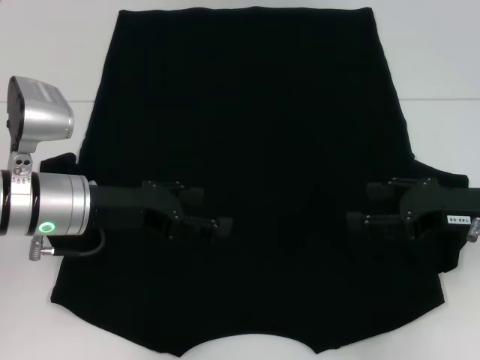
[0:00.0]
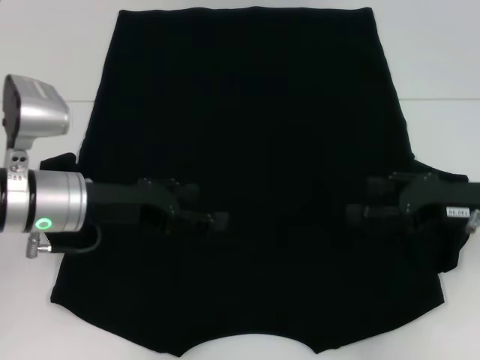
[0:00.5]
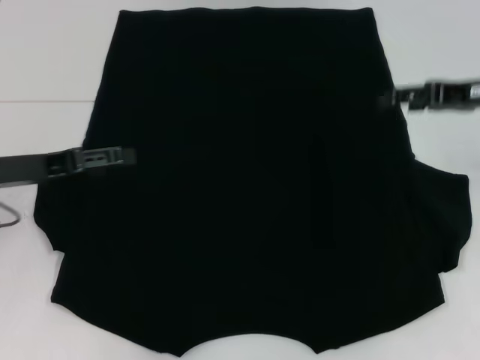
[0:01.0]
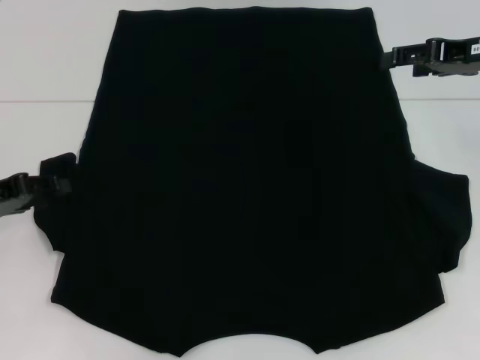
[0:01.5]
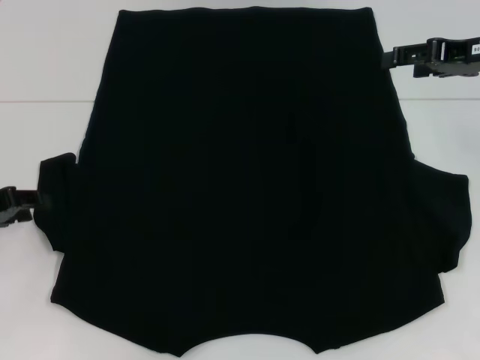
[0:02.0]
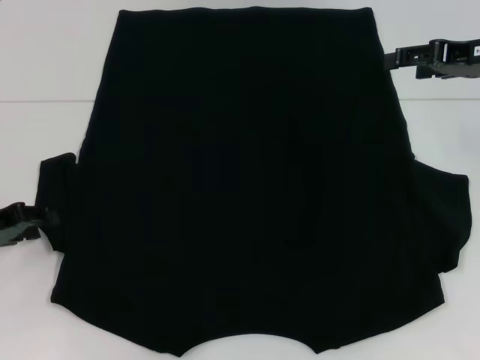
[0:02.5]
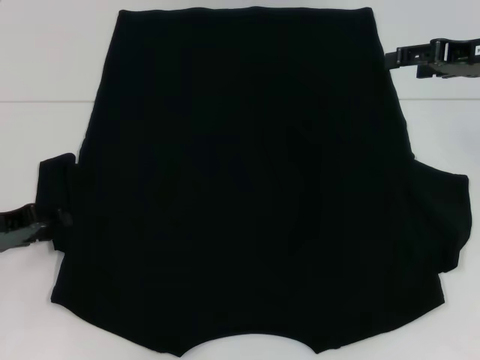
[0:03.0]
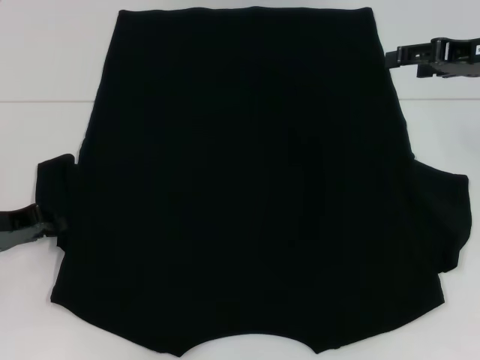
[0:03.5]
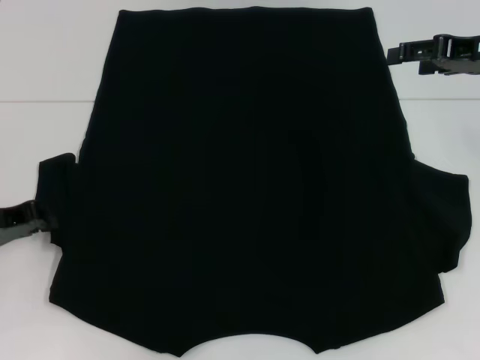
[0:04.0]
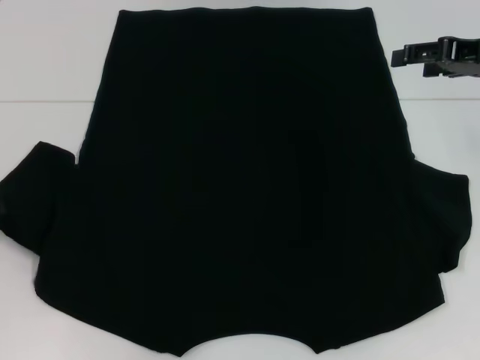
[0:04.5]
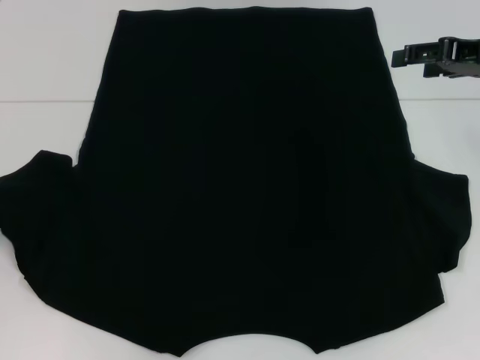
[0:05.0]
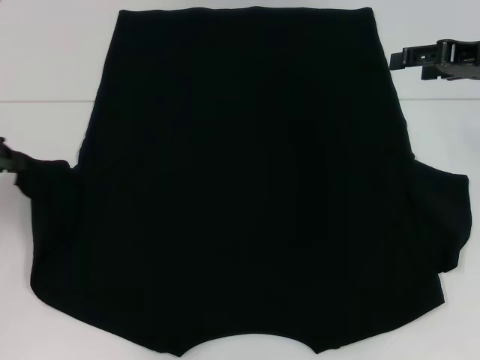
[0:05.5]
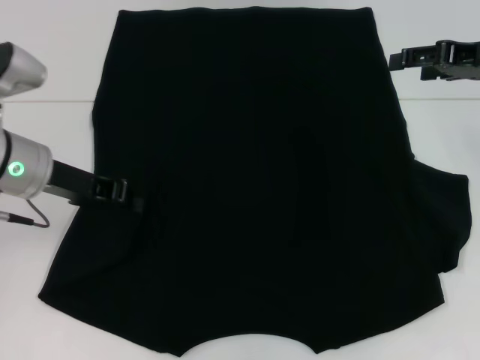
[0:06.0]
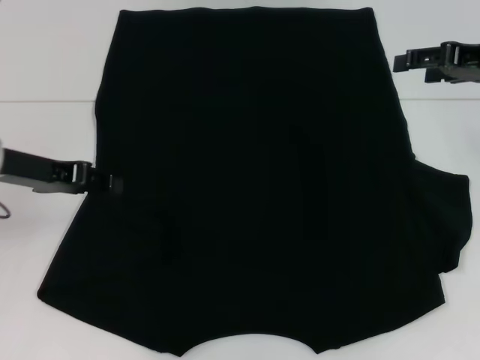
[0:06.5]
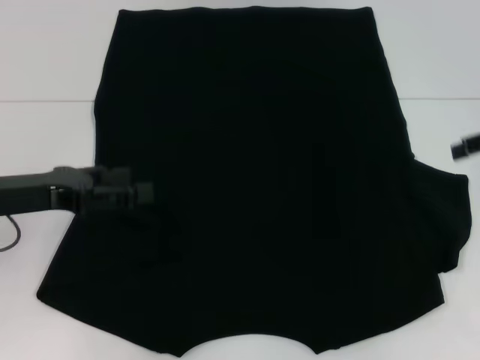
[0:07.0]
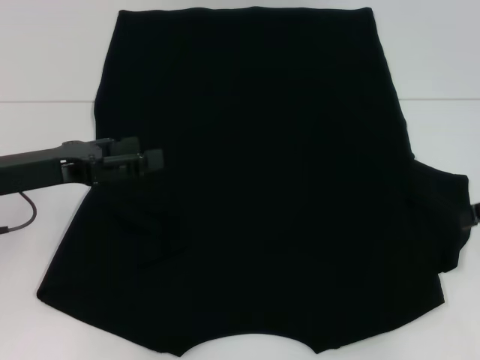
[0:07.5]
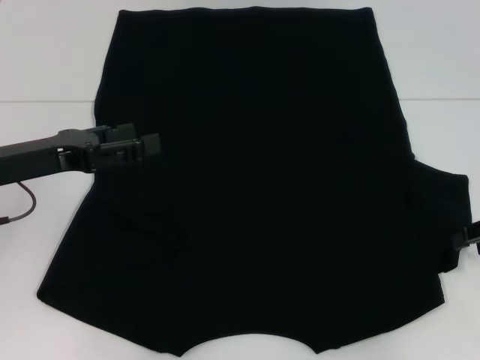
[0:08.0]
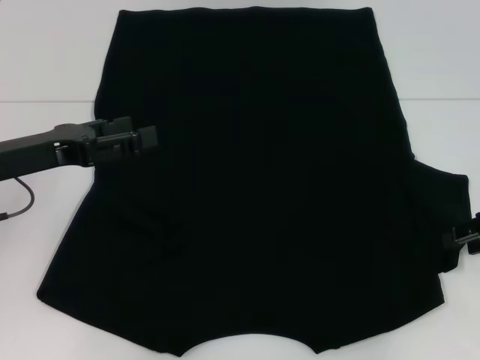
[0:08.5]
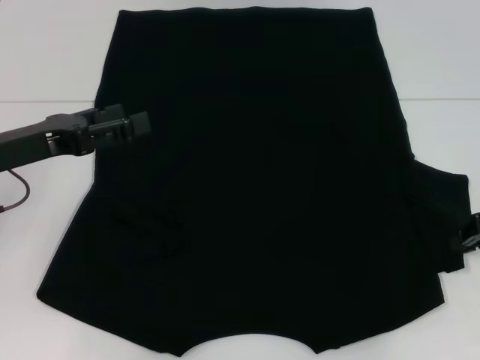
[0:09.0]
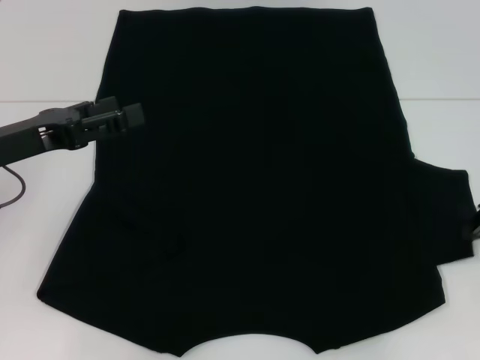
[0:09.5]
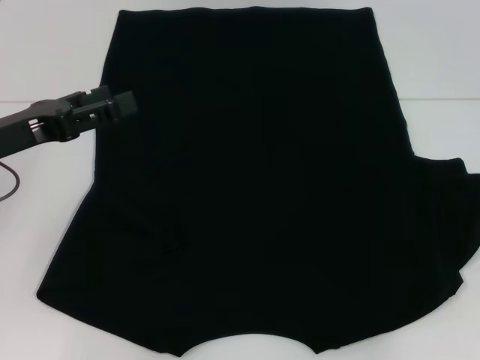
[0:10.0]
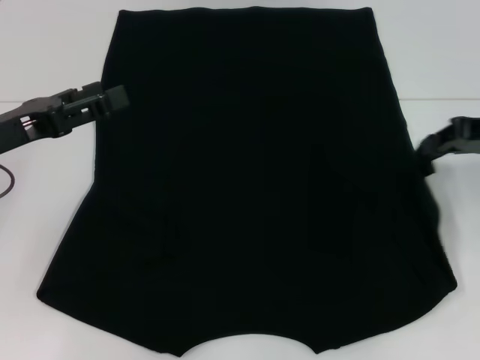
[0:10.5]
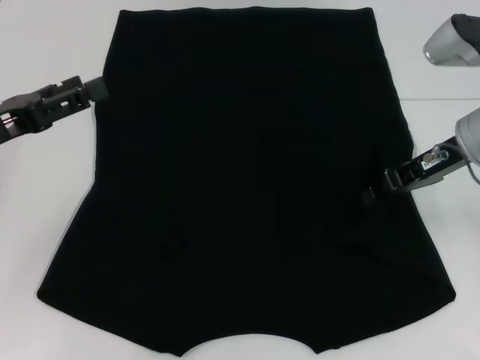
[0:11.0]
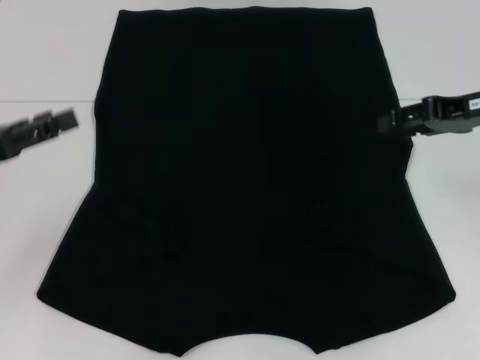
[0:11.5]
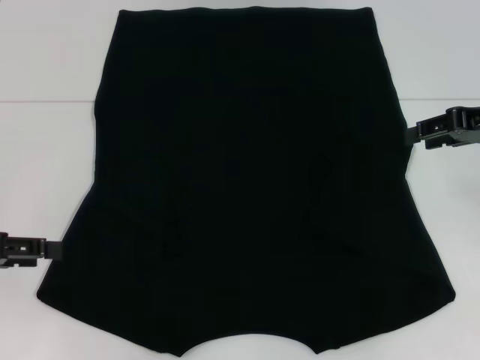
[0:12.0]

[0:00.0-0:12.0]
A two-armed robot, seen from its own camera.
Step, 0.0 to 6.0 s: Fold the bottom left sleeve with your left hand.
Step, 6.5 to 11.0 s: Fold the bottom right sleeve with your right hand.
0.0 to 2.0 s: The right gripper is displaced upward and forward by about 15 cm; the left gripper is displaced to the left by roughly 15 cm, and closes its fingers.
2.0 to 4.0 s: The left gripper closes its fingers.
4.0 to 6.0 s: The left gripper travels to the right and upward by about 10 cm.
6.0 to 8.0 s: The right gripper travels backward, downward and to the right by roughly 15 cm; the left gripper shifts by some 5 cm, and opens up.
8.0 to 10.0 s: The right gripper closes its fingers.
10.0 to 12.0 s: The two grippers go about 5 cm to the left. The right gripper opens up.

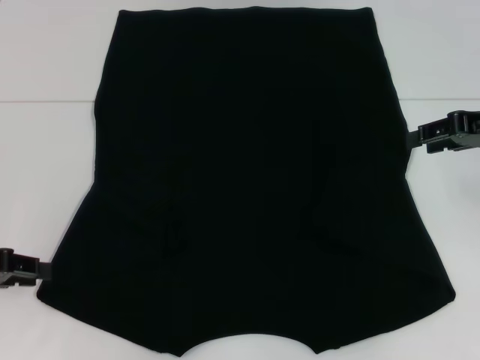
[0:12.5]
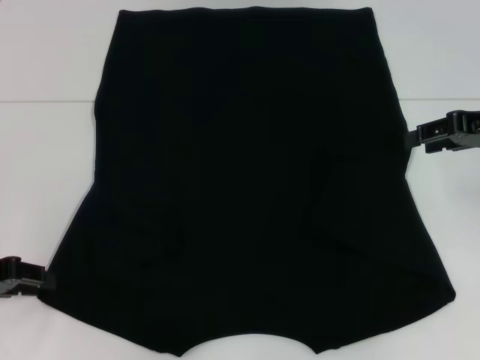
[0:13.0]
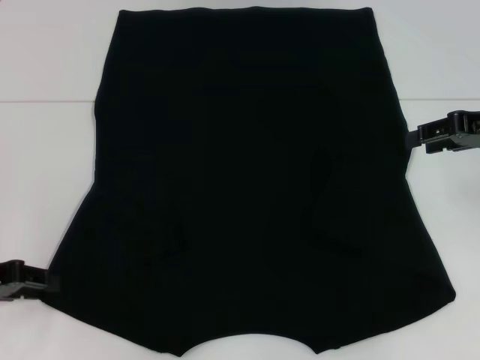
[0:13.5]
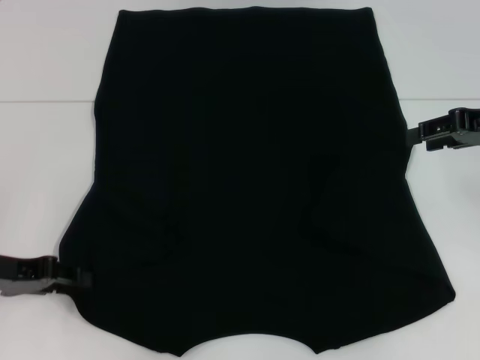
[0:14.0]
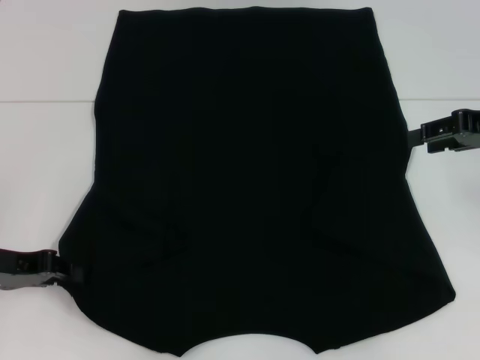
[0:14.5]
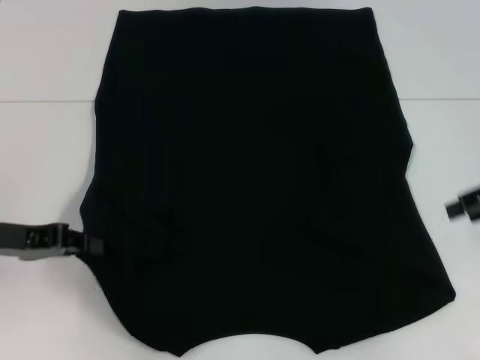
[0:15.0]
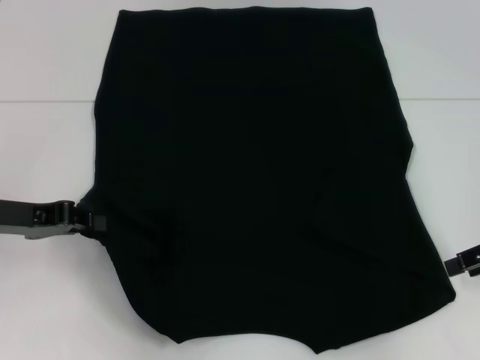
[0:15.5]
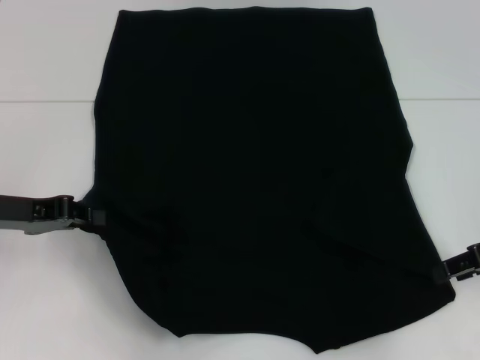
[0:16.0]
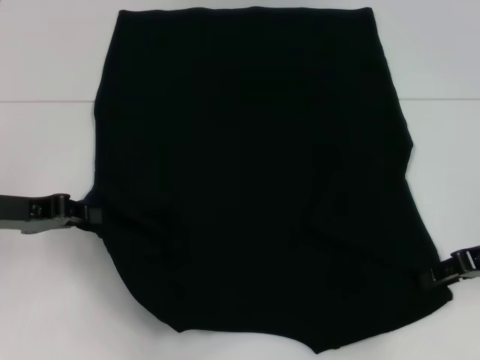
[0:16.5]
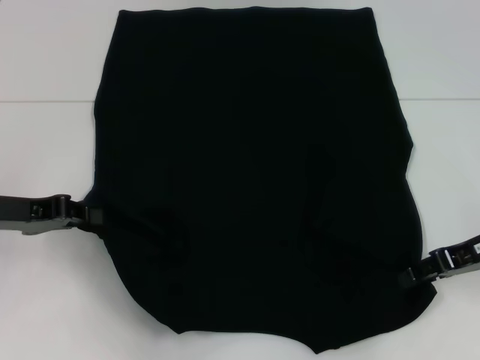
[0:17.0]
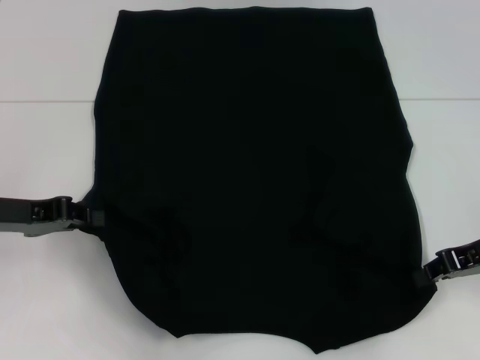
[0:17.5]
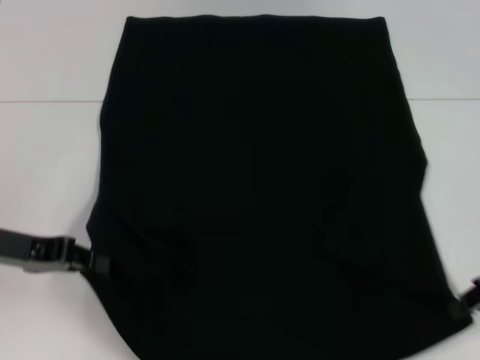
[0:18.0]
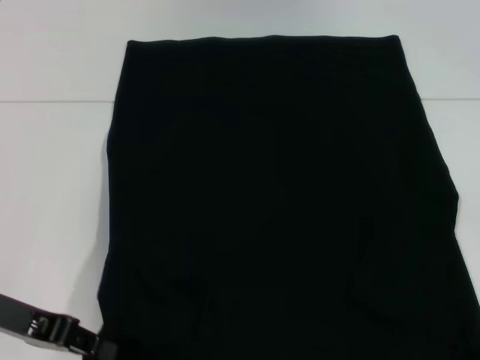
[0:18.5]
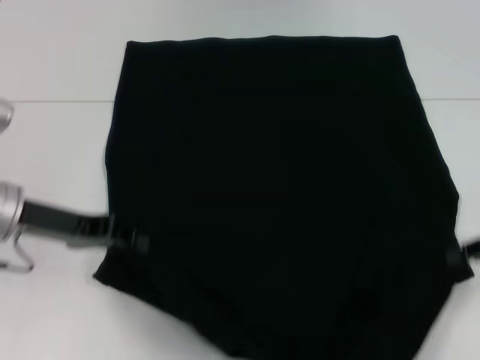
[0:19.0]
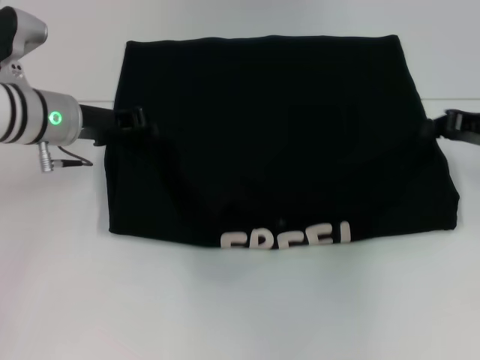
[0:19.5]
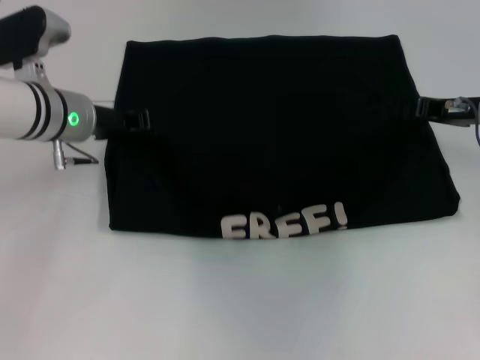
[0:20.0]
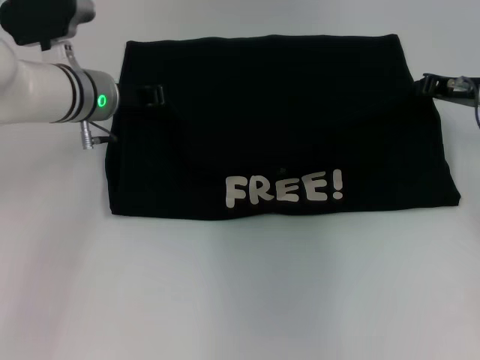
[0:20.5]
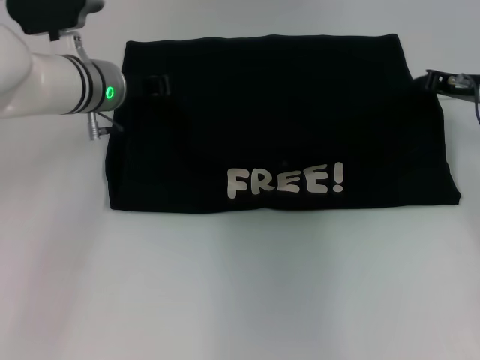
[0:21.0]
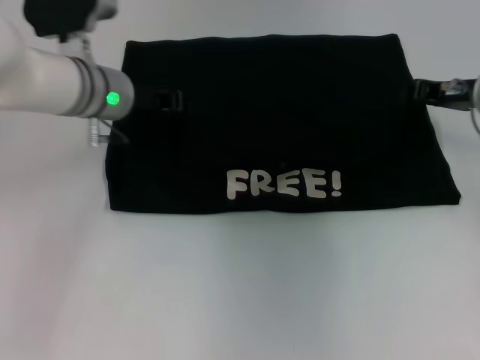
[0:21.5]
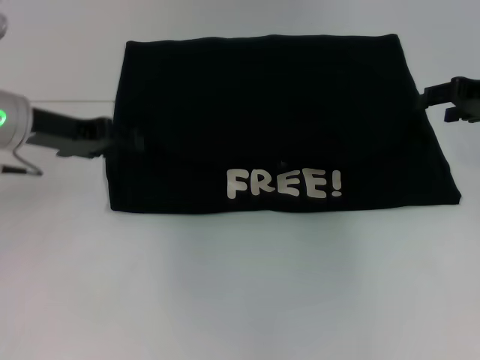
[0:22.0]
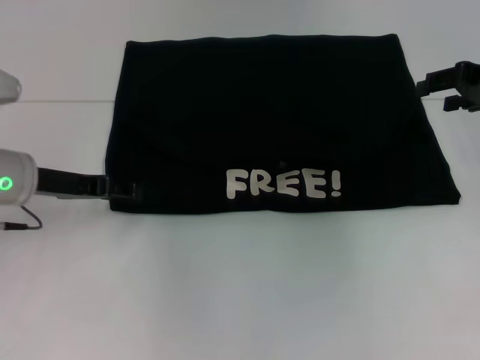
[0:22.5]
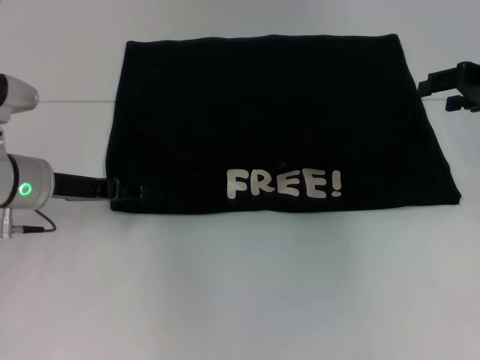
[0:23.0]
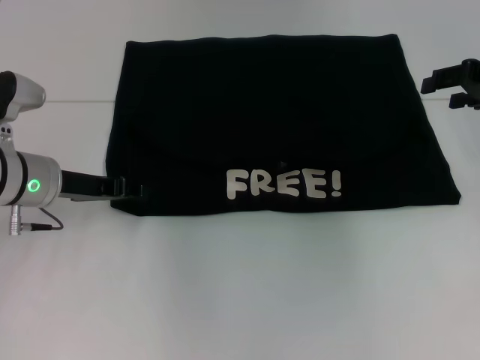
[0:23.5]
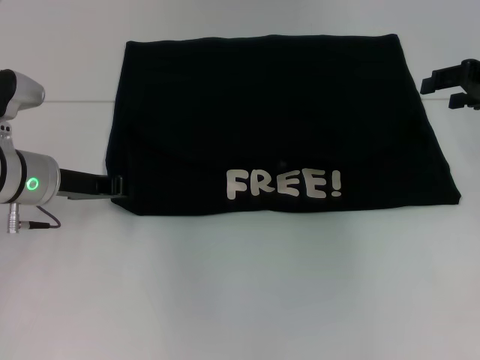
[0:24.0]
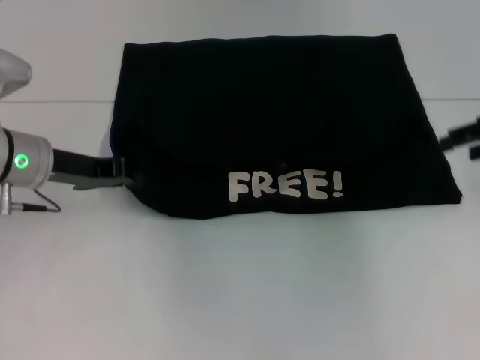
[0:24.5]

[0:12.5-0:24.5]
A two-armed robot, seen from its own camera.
Step, 12.5 to 14.5 s: Grab the bottom left corner with your left hand.
Step, 15.0 to 17.5 s: Grab the bottom right corner with your right hand.
Step, 18.0 to 21.5 s: Fold the clothes with your left hand.
Step, 18.0 to 21.5 s: Fold the clothes with your right hand.
12.5 to 14.5 s: The grippers make only small movements.
14.5 to 16.5 s: The right gripper shifts some 10 cm downward and backward.
16.5 to 18.5 s: Both grippers travel together backward, roughly 5 cm. The right gripper closes up.
18.5 to 20.5 s: The right gripper goes roughly 20 cm forward. The left gripper heads forward and to the right, covering approximately 20 cm.
20.5 to 22.5 s: The right gripper travels upward by roughly 5 cm, and opens up, while the left gripper shifts about 10 cm to the left and backward, and opens up.
22.5 to 24.5 s: The left gripper closes.

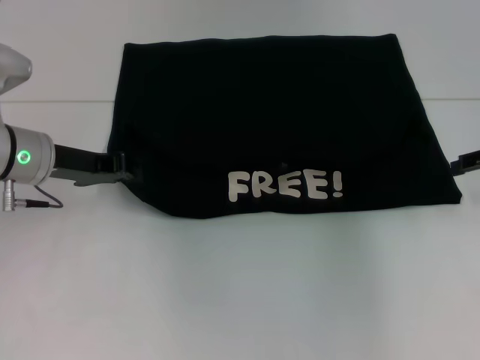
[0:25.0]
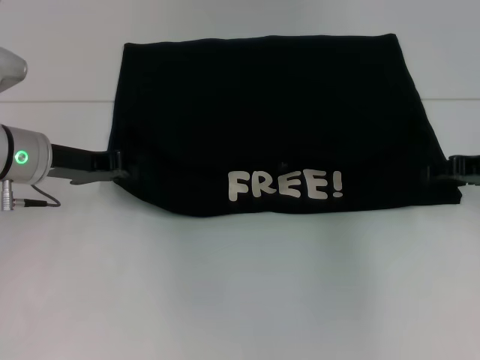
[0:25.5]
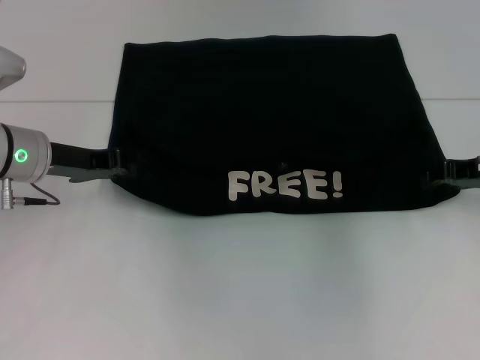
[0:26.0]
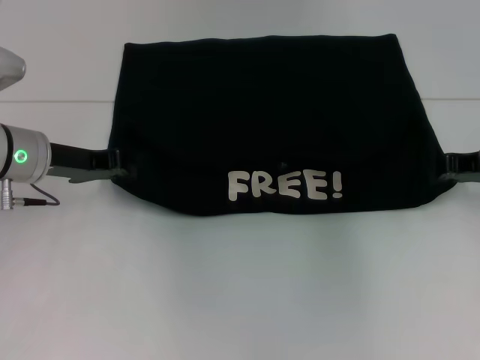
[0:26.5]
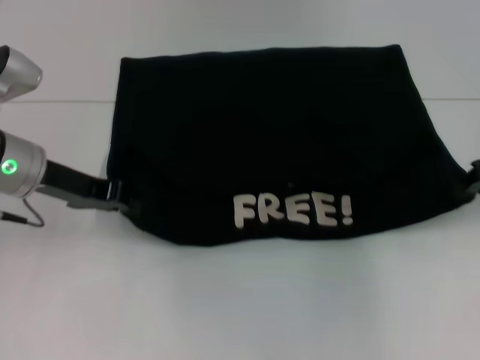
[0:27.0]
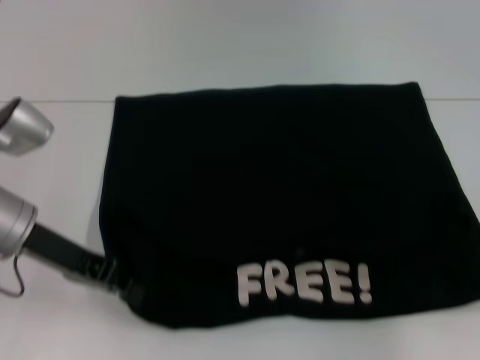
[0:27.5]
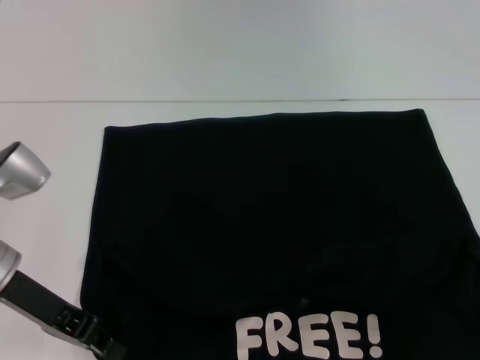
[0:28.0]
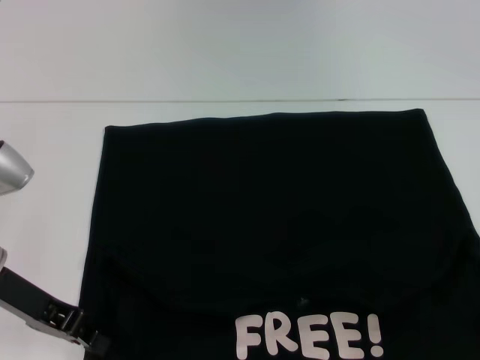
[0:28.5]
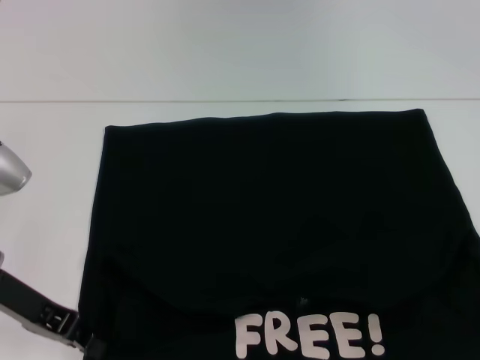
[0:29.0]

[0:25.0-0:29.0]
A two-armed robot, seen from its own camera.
Step, 25.0 to 27.5 s: Pull the clothes with your left hand.
Step, 25.0 to 27.5 s: Pull the clothes with your right hand.
25.0 to 27.0 s: The right gripper closes up.
27.0 to 29.0 s: The grippers both shift backward by roughly 10 cm.
